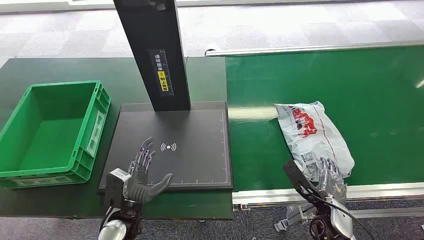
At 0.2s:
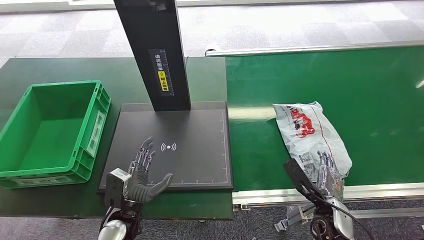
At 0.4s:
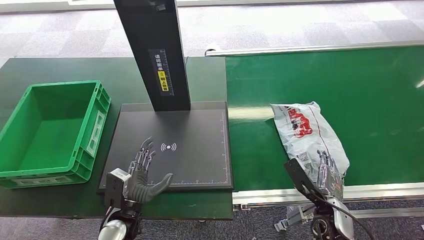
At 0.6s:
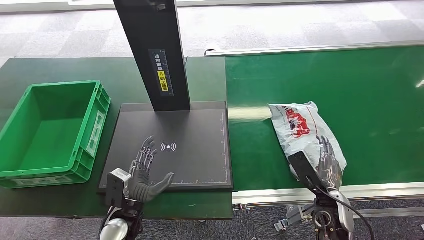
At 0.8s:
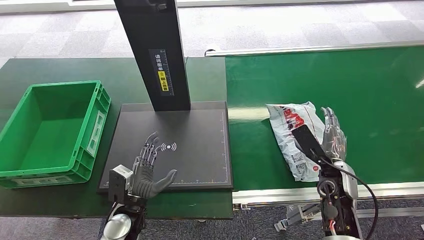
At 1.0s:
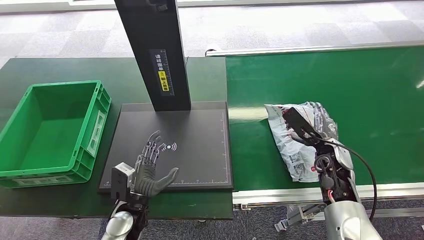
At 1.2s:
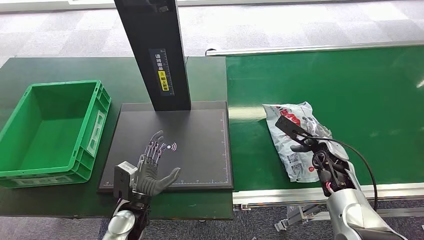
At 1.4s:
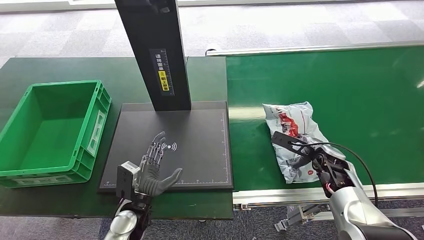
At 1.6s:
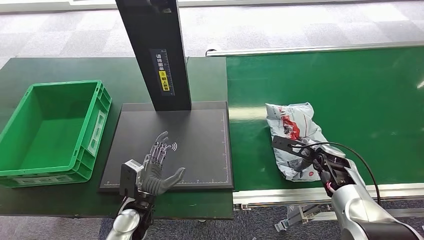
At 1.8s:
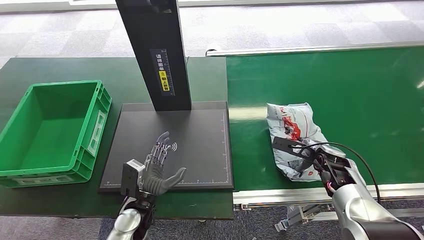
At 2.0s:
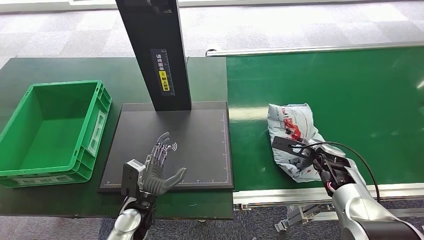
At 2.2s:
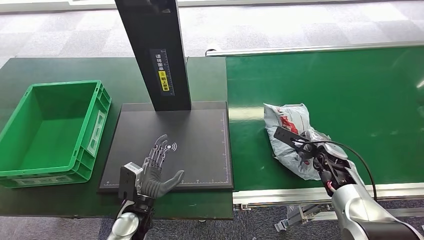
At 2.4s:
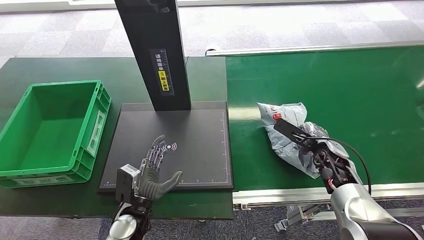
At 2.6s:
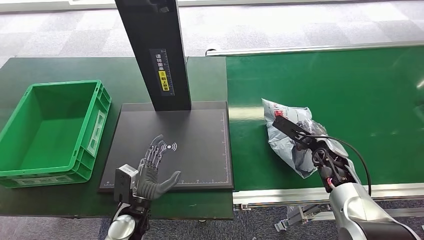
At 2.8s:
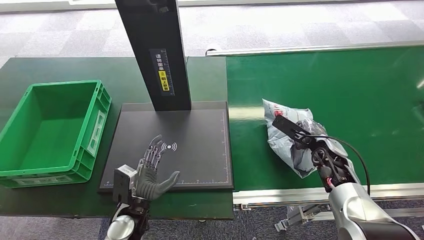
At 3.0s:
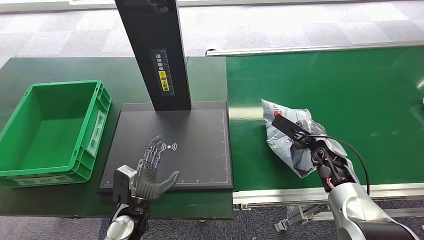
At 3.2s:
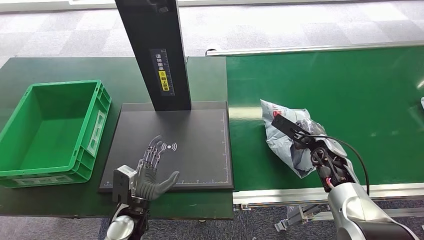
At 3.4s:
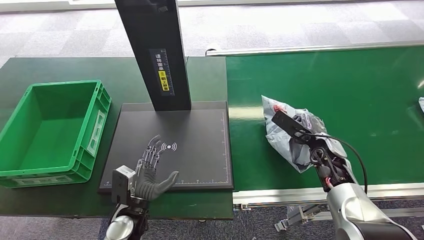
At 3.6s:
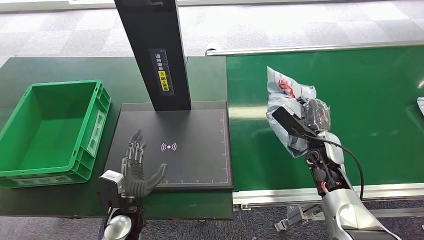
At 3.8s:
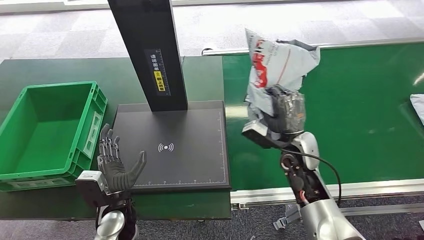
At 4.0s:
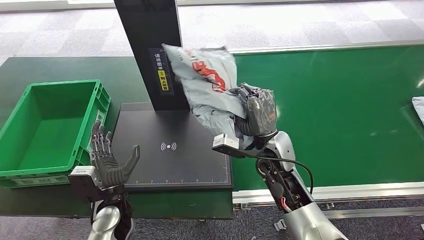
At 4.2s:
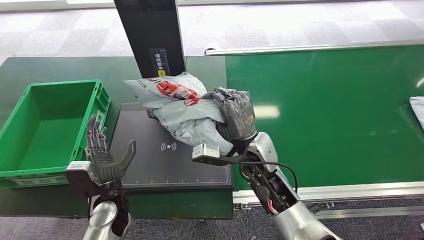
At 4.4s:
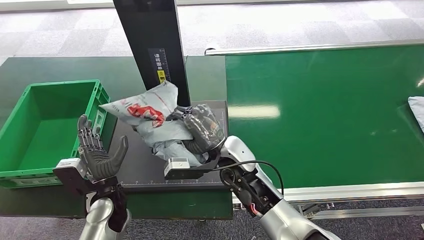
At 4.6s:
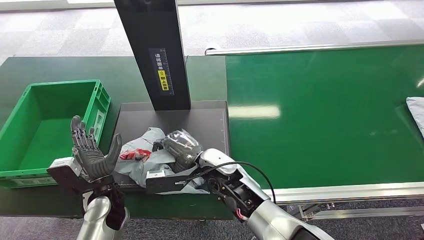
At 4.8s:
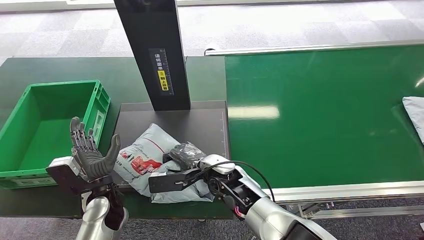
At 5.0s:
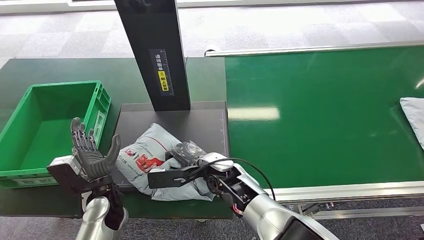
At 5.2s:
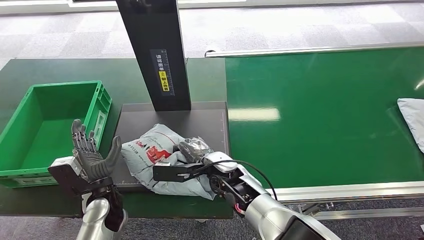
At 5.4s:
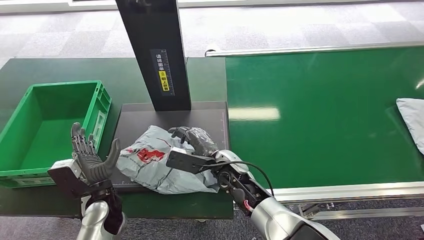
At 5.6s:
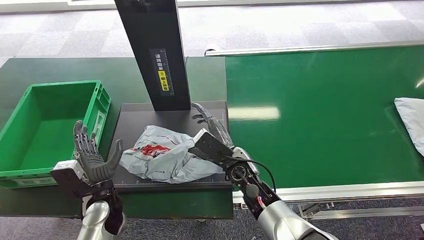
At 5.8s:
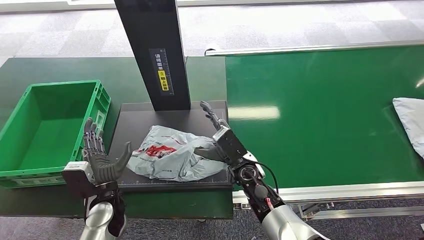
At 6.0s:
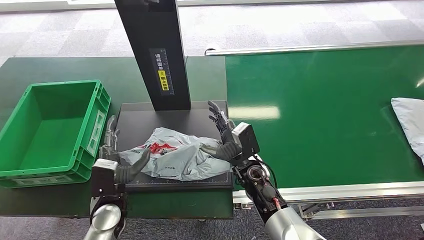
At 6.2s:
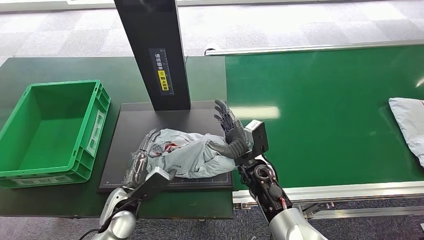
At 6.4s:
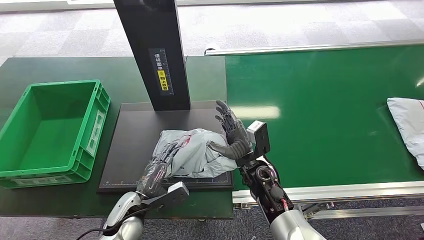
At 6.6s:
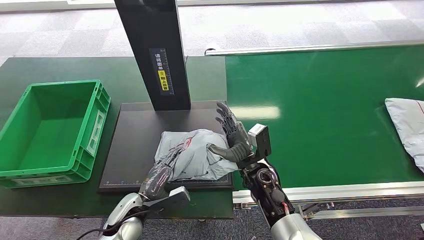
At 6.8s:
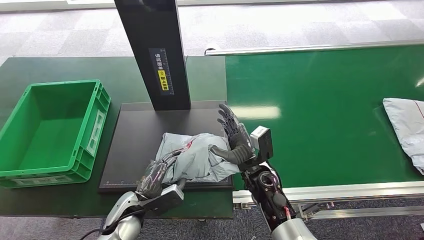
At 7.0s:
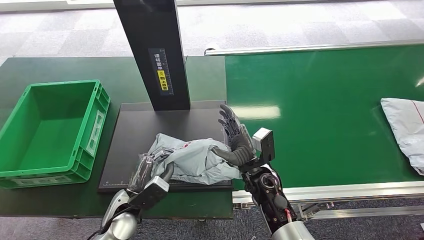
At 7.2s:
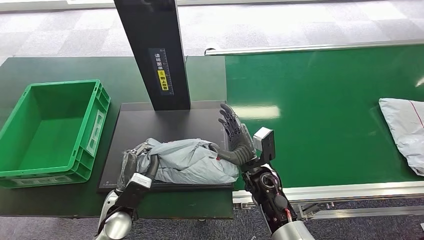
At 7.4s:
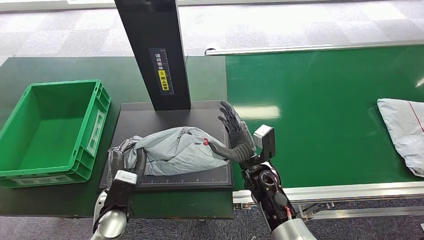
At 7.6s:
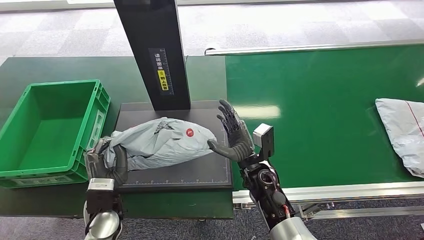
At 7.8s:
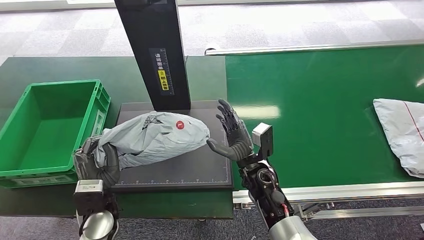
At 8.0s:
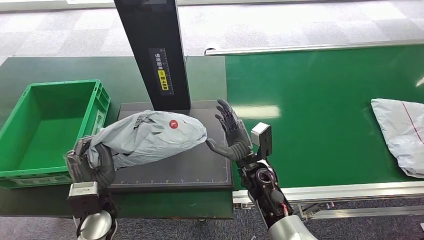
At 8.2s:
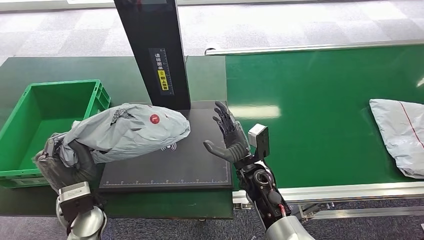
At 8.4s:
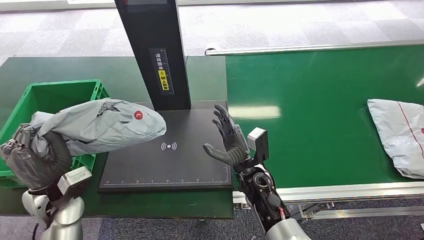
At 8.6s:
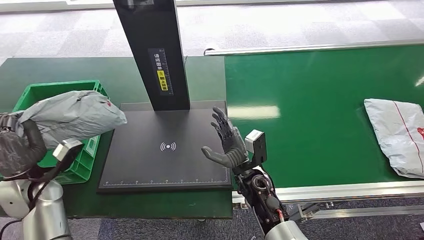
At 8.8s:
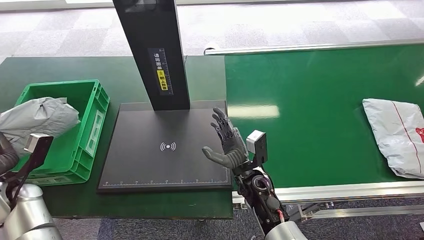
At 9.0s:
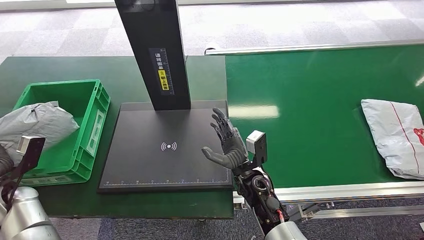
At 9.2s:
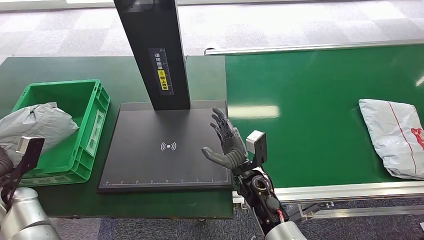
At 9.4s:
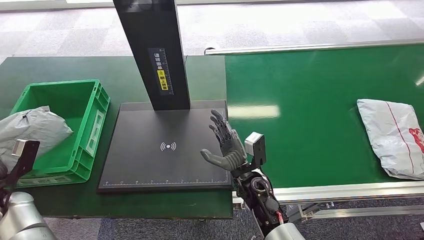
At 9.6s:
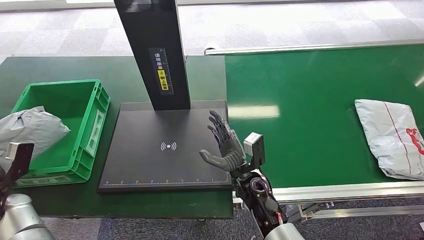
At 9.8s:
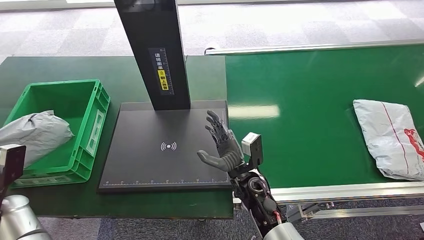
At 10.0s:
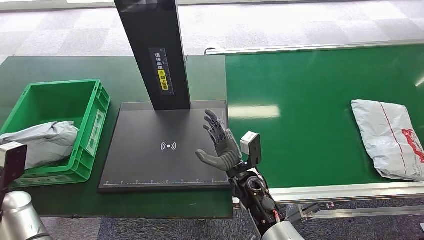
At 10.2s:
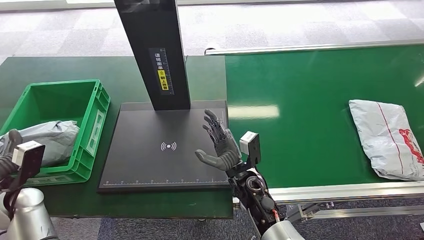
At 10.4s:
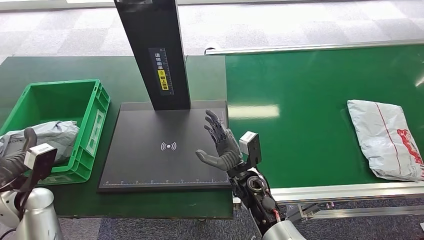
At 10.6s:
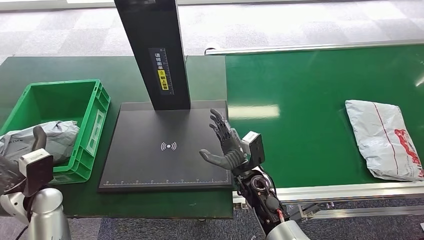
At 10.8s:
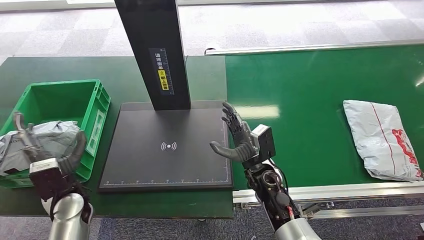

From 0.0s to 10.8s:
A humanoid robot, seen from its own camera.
Task of the whole recording: Weigh the package on the weighing device and place it in the left basket.
Step, from 0.0s to 4.2s: Pick up the package from the conveyor belt.
Step, from 4.6s to 5.6s: Place the package onto the inbound machine.
Step, from 5.8s to 8.2s: Pick up the package from the inbound machine.
Step, from 8.4s to 10.8s: Place the package into the parcel locker.
From 4.6s to 6.2s: The right hand is displaced to the right by roughly 10 cm.
From 7.8s to 9.2s: The left hand heads to the left, covering approximately 25 cm.
From 9.2s to 10.8s: The left hand goes about 15 cm to the right.
